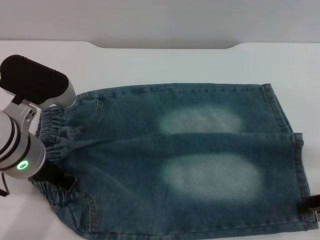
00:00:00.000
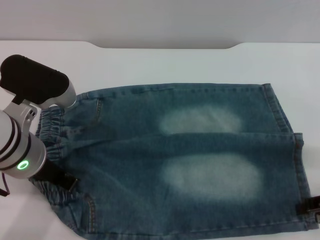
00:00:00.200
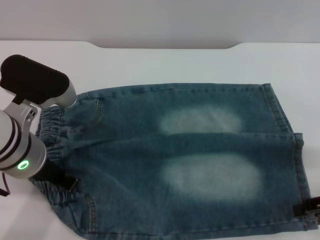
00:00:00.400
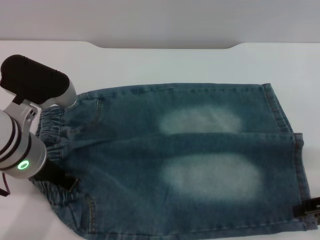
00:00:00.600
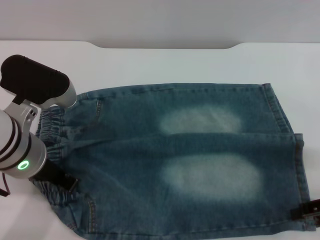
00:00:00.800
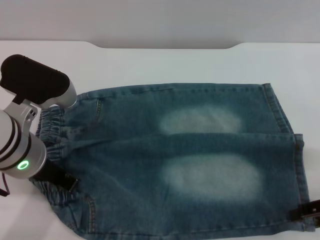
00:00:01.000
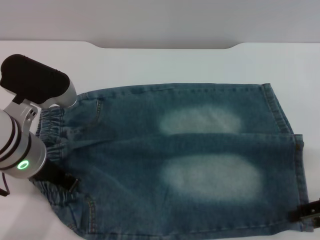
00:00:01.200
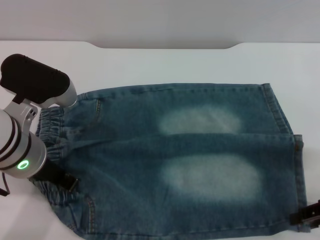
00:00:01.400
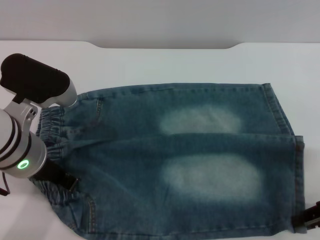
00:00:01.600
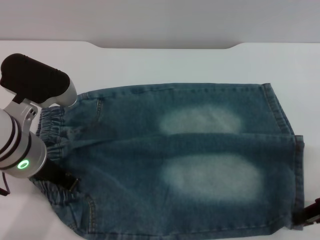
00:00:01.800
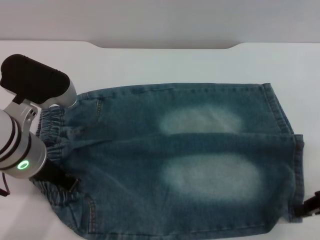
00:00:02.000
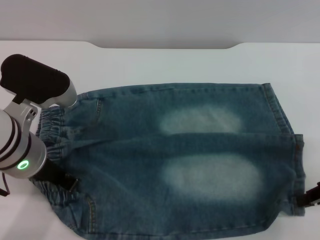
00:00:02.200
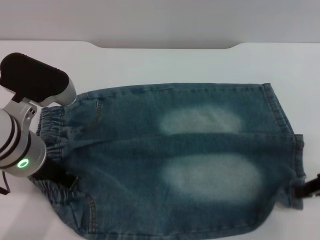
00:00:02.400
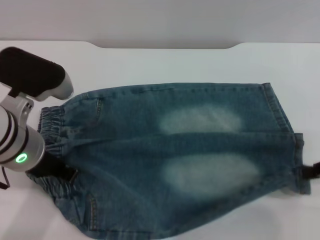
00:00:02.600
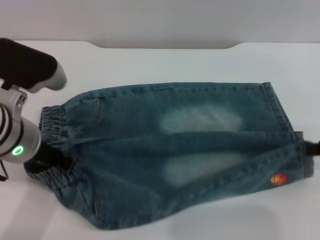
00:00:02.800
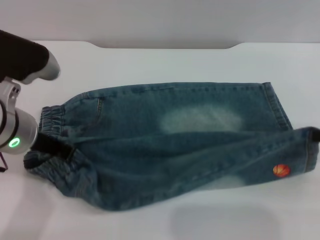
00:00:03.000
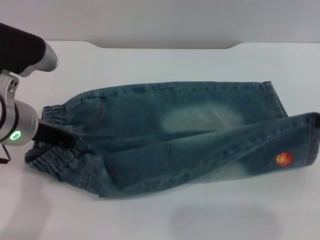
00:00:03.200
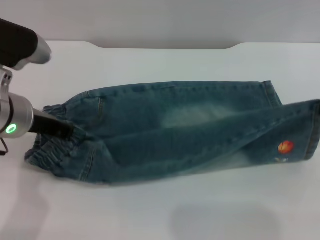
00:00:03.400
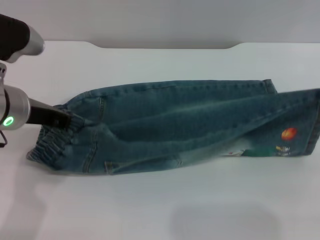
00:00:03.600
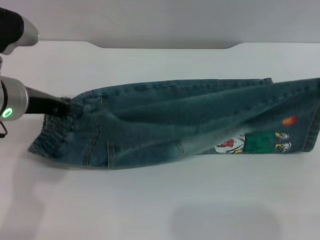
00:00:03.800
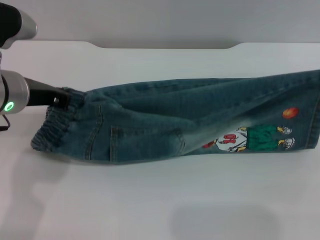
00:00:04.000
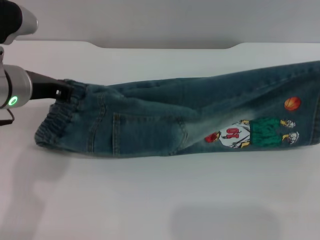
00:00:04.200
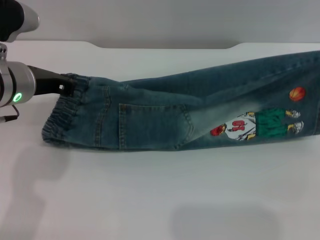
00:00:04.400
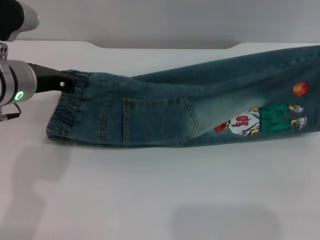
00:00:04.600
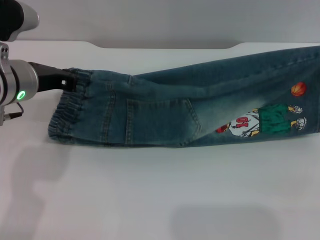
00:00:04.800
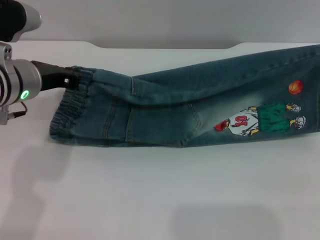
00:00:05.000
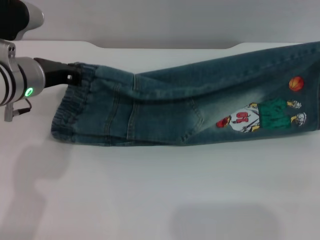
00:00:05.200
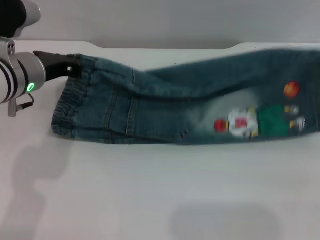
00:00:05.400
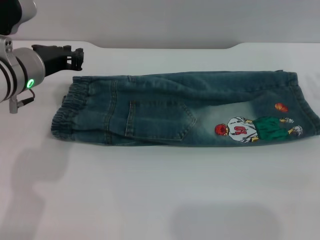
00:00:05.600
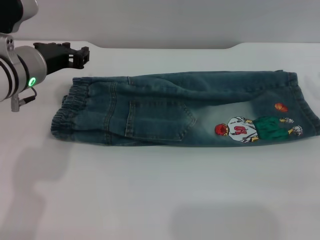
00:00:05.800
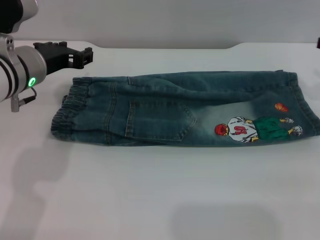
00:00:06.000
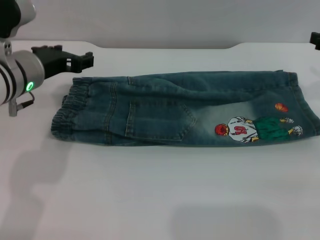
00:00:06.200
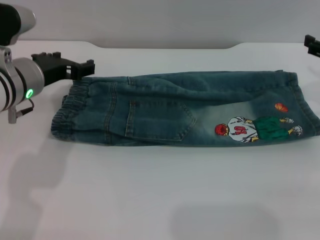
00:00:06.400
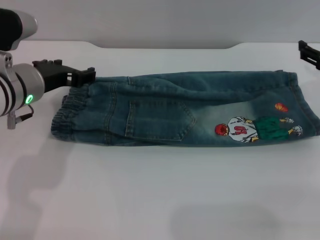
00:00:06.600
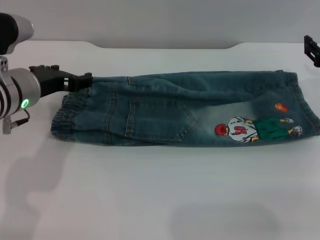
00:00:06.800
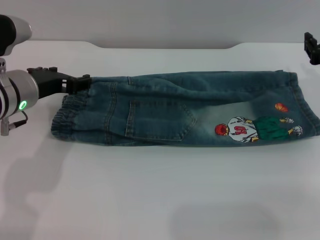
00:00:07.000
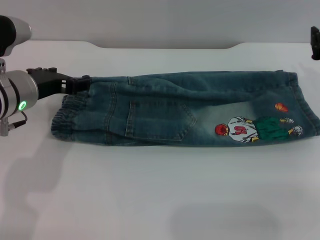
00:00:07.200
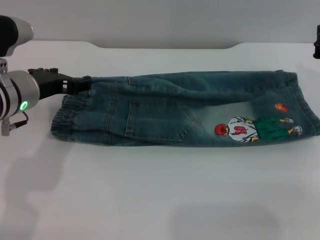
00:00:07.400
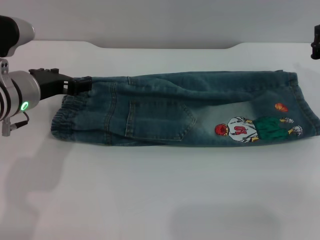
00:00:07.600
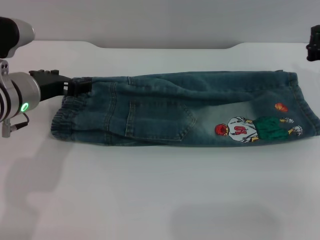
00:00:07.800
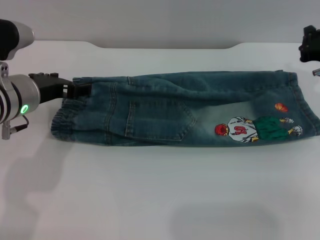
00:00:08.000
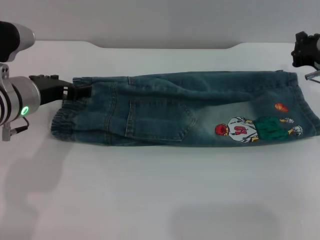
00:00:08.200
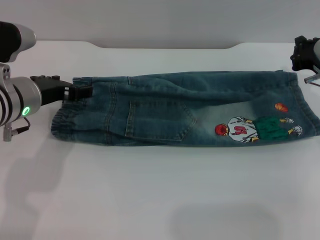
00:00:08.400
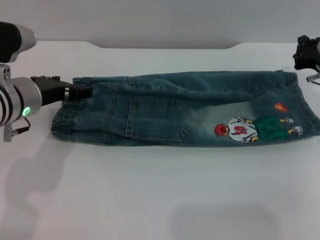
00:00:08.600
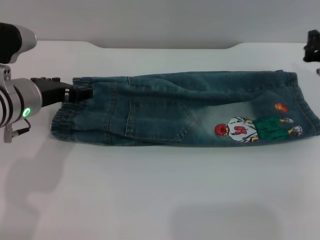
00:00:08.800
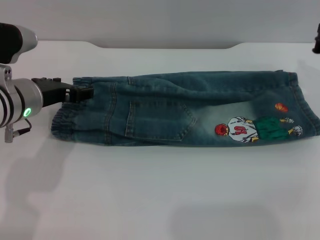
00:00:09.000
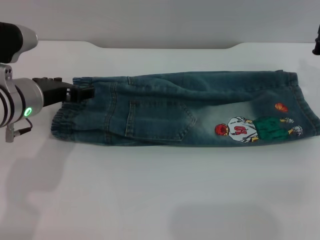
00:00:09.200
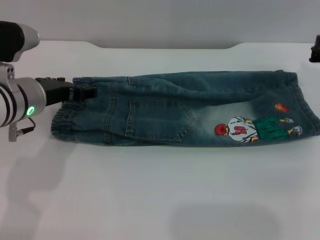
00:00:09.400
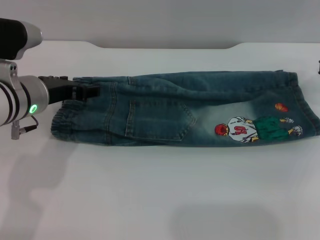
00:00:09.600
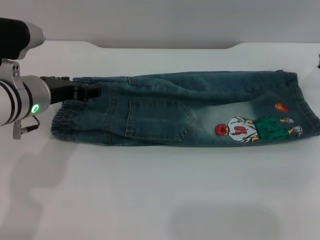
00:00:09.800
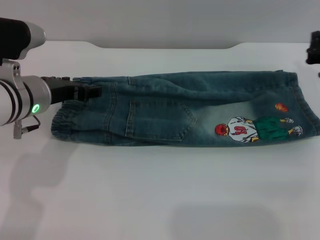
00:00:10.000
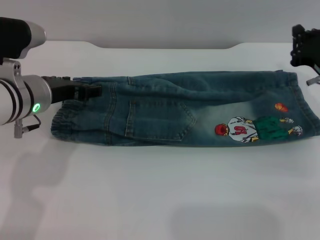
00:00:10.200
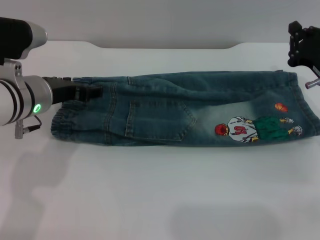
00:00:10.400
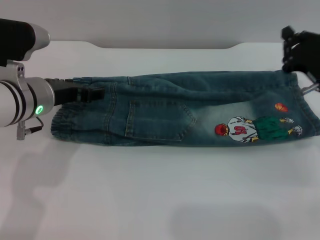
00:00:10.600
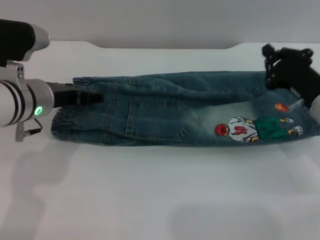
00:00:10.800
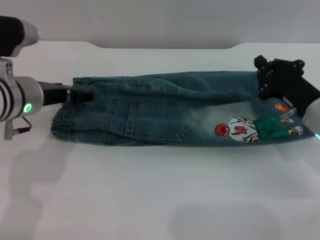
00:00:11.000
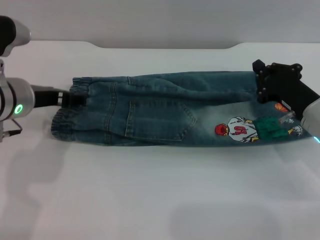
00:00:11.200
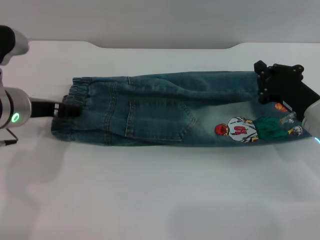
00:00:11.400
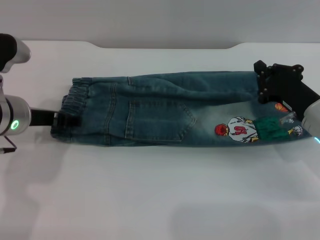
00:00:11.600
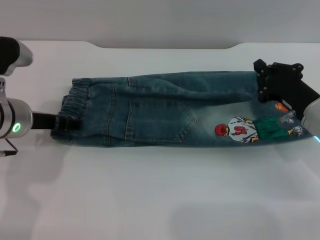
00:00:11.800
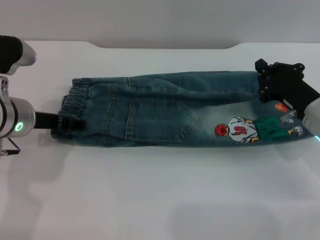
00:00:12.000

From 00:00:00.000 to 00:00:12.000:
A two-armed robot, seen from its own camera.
Step, from 00:00:00.000 to 00:00:05.600: Fold the bottom of the pants upward with both grippers.
From 00:00:00.000 to 00:00:01.600: The right gripper closes its fingers.
From 00:00:01.600 to 00:00:03.000: The right gripper shifts approximately 10 cm upward, and closes.
From 00:00:04.400 to 00:00:06.000: The left gripper opens; the right gripper changes place by approximately 5 cm, and opens its fingers.
From 00:00:06.000 to 00:00:07.600: The left gripper opens its fingers.
From 00:00:07.600 to 00:00:09.000: There are only small adjustments of the grippers.
From 00:00:10.400 to 00:00:12.000: The grippers make only small movements.

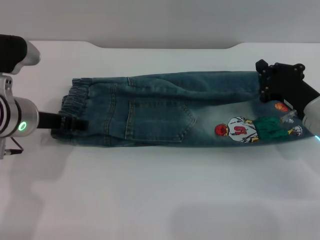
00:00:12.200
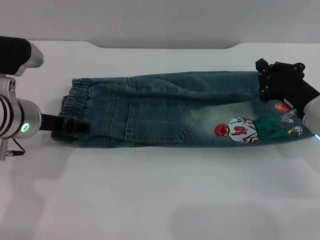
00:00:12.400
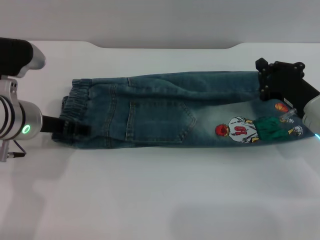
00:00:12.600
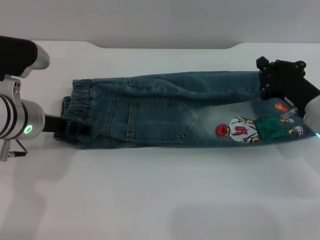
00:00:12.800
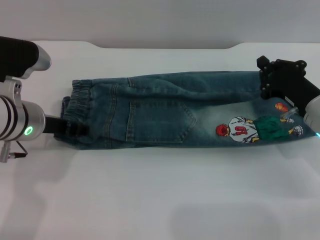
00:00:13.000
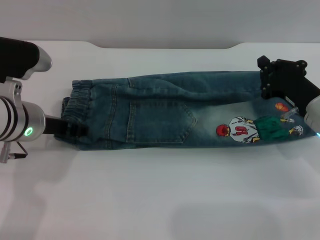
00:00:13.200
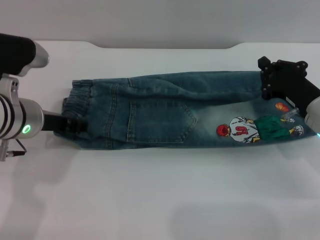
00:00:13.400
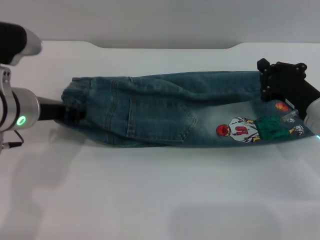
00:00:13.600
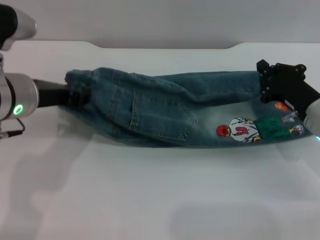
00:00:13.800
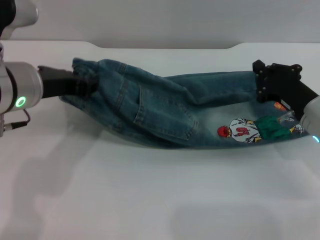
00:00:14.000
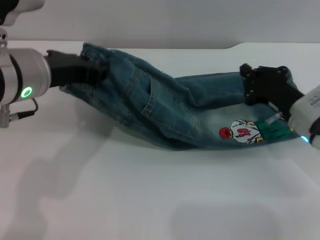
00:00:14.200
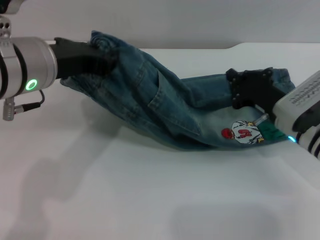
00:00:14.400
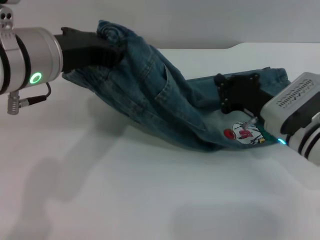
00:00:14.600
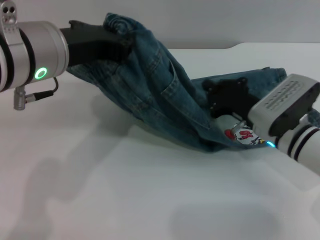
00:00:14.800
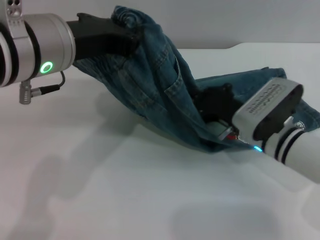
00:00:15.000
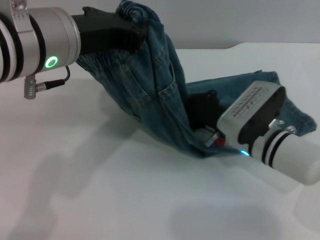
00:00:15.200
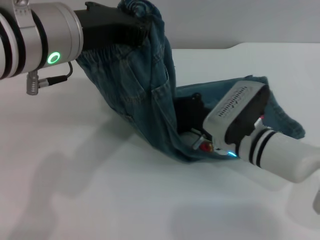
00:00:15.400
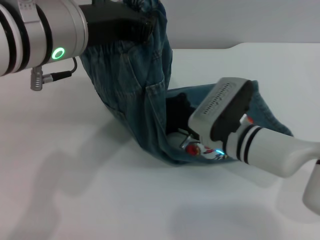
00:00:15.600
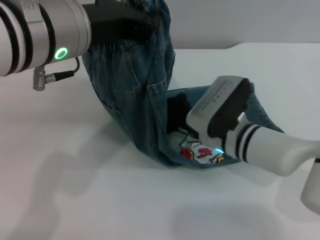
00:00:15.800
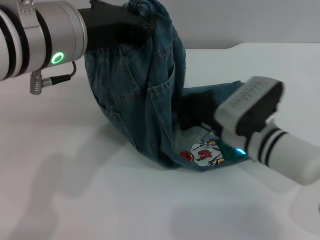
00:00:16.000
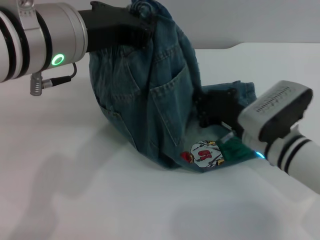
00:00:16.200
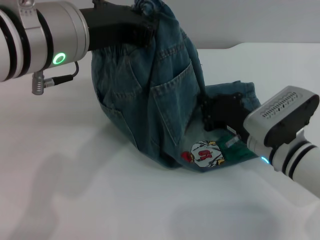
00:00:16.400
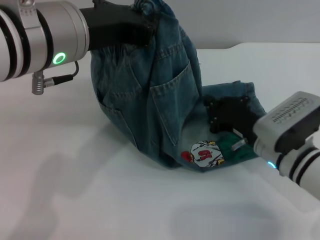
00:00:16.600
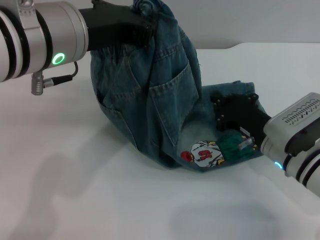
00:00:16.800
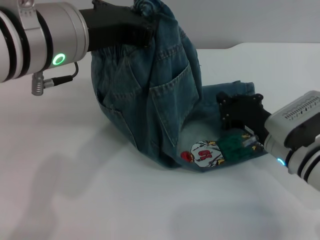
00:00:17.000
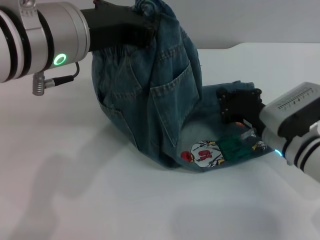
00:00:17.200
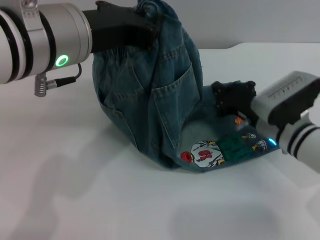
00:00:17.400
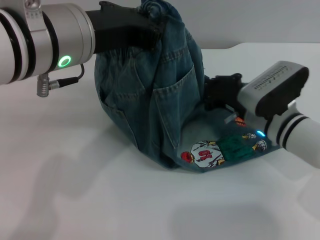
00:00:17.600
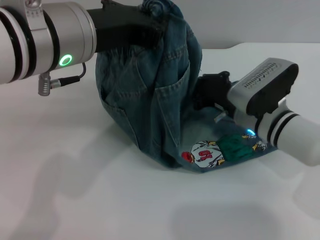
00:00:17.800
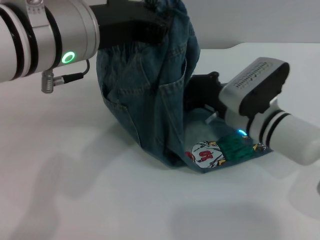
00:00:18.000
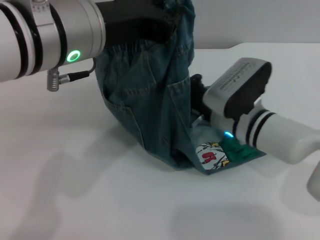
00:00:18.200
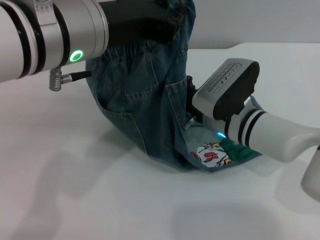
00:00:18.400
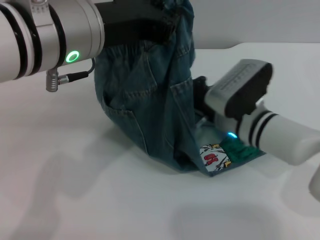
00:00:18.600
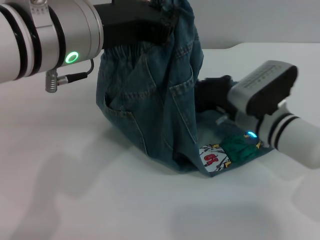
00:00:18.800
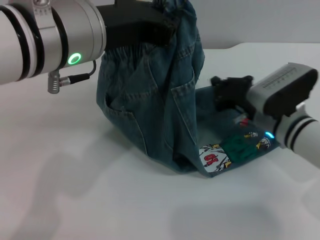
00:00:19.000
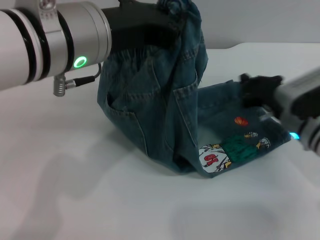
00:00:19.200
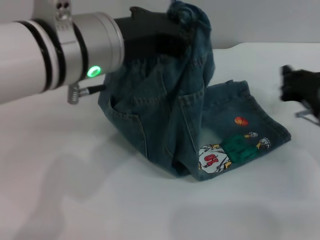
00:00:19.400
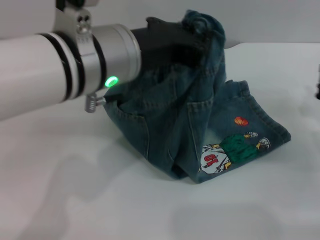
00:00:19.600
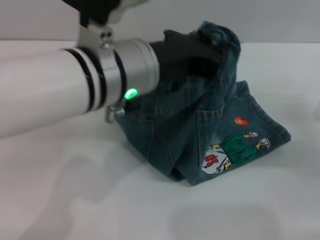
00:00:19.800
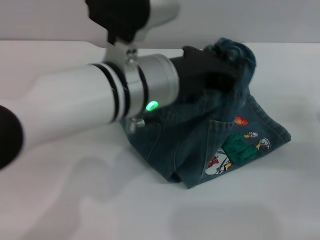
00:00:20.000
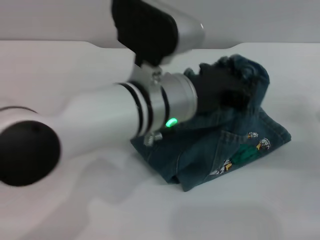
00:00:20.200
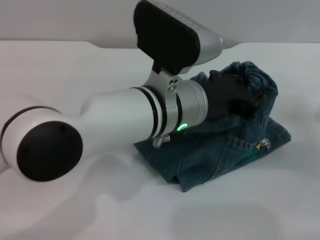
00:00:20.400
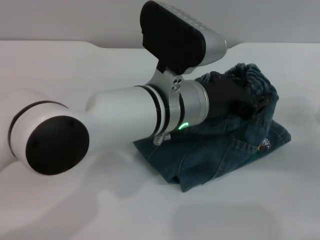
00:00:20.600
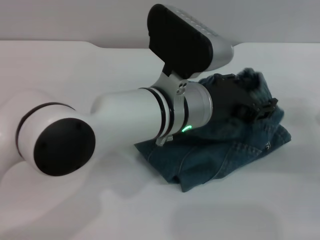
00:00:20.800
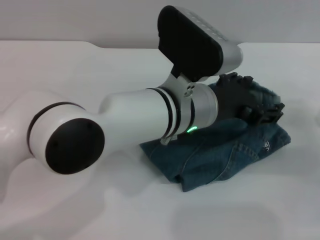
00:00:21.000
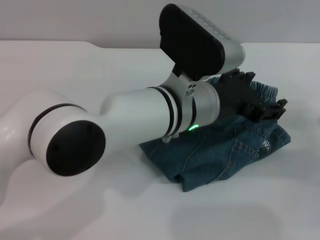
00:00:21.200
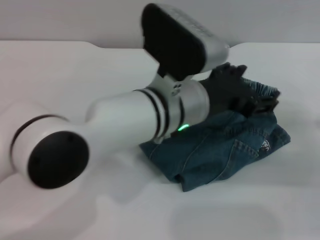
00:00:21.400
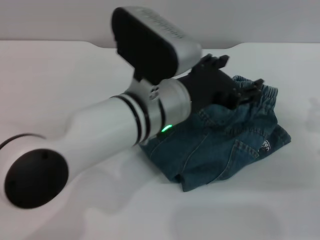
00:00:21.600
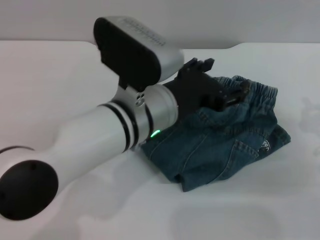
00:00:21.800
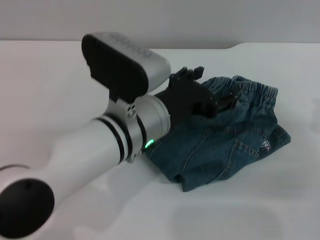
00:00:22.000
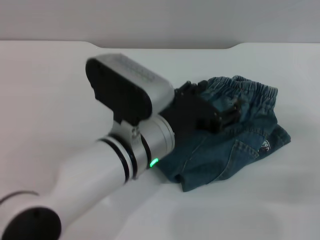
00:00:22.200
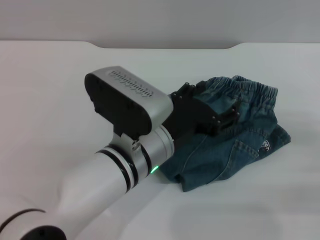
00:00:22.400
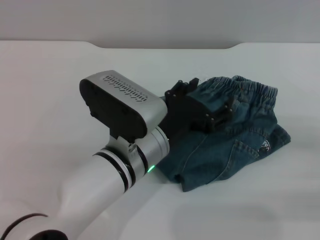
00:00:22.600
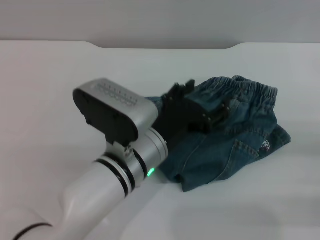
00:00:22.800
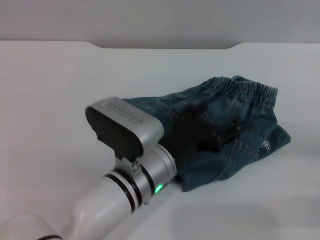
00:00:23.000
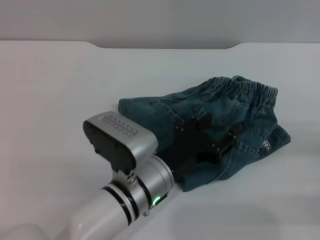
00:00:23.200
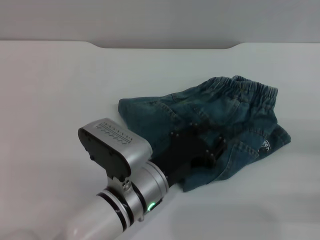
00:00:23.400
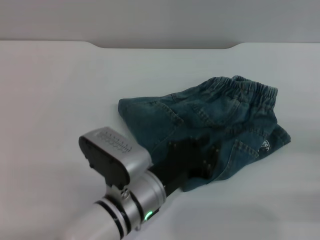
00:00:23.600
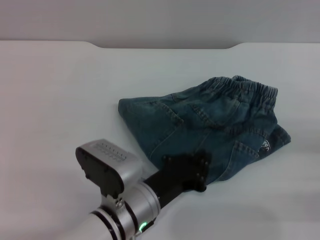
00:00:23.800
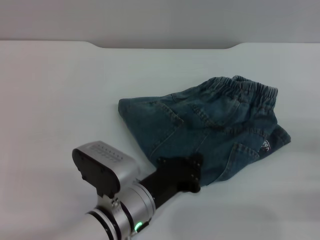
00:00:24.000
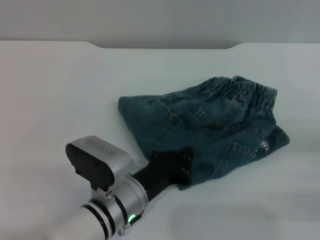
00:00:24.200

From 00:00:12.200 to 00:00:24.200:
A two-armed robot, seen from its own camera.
Step, from 00:00:12.200 to 00:00:21.800: Fold the pants from left to right with the left gripper.
From 00:00:12.200 to 00:00:13.800: The left gripper heads upward, covering some 5 cm, and closes its fingers.
From 00:00:13.800 to 00:00:15.200: The right gripper moves to the left, approximately 10 cm. The left gripper heads upward and to the right, covering some 10 cm.
From 00:00:16.600 to 00:00:18.200: The right gripper heads to the left and forward, covering approximately 10 cm.
From 00:00:18.200 to 00:00:19.800: The right gripper heads to the right, covering some 20 cm; the left gripper ends up some 5 cm from where it was.
From 00:00:19.800 to 00:00:21.200: The left gripper moves to the right and downward, roughly 10 cm, and opens.
From 00:00:21.200 to 00:00:22.600: The right gripper is displaced backward by roughly 5 cm; the left gripper is displaced downward and to the left by approximately 10 cm.
From 00:00:22.600 to 00:00:24.200: The left gripper travels downward by roughly 10 cm, and closes up.
